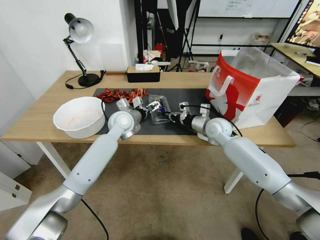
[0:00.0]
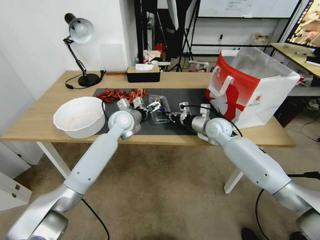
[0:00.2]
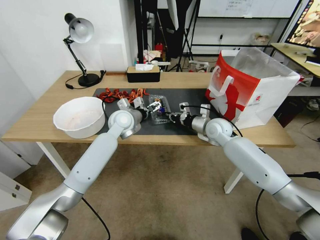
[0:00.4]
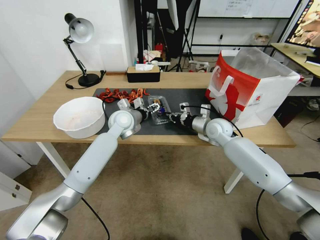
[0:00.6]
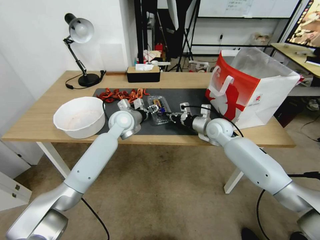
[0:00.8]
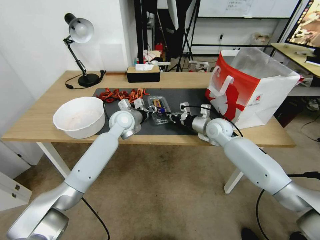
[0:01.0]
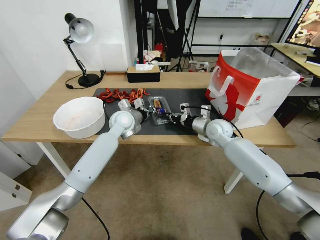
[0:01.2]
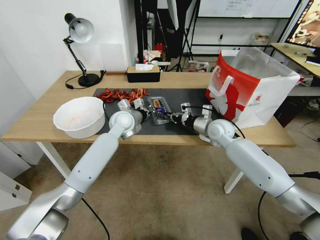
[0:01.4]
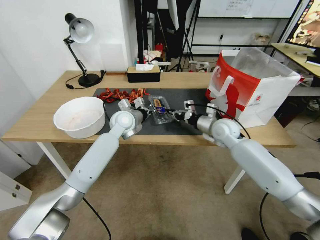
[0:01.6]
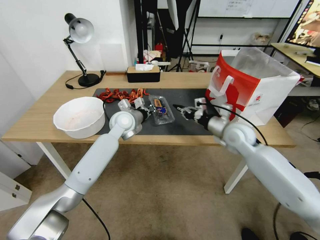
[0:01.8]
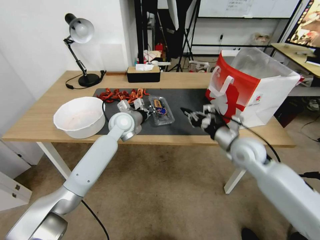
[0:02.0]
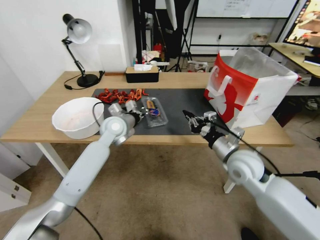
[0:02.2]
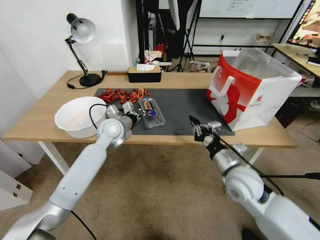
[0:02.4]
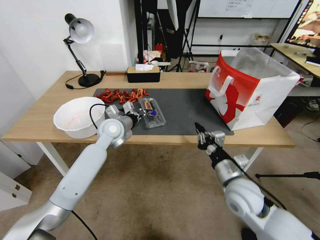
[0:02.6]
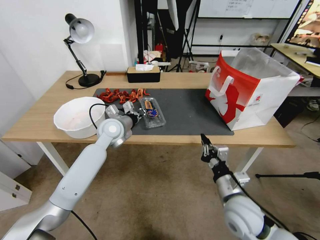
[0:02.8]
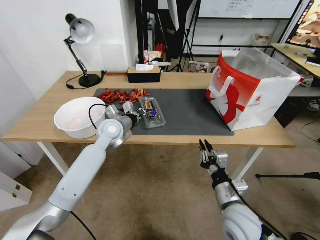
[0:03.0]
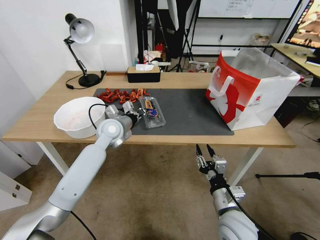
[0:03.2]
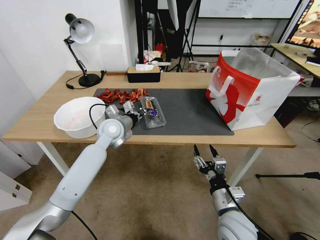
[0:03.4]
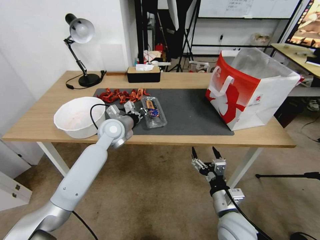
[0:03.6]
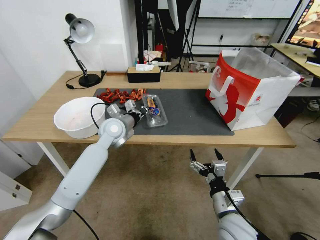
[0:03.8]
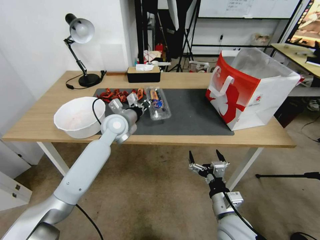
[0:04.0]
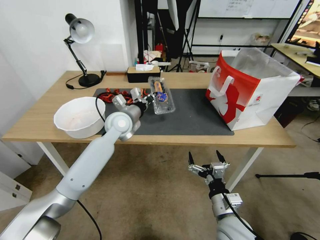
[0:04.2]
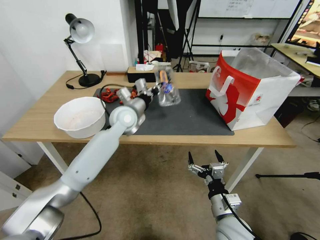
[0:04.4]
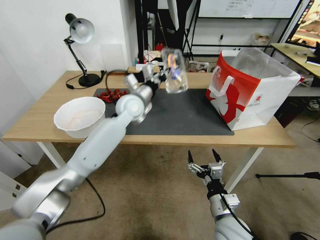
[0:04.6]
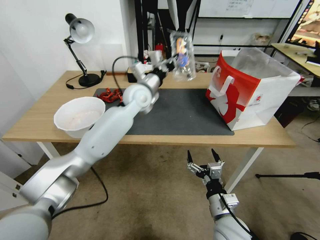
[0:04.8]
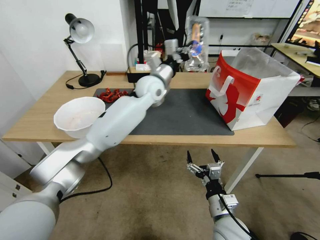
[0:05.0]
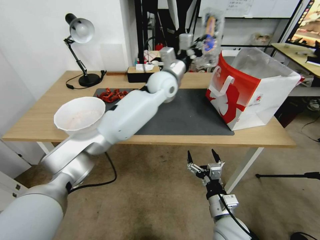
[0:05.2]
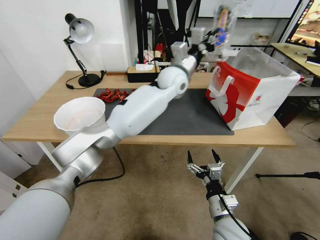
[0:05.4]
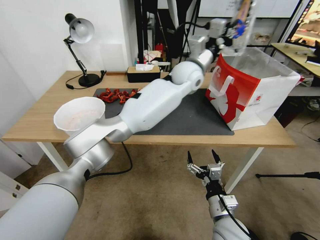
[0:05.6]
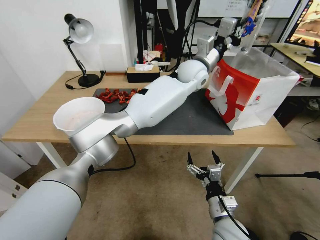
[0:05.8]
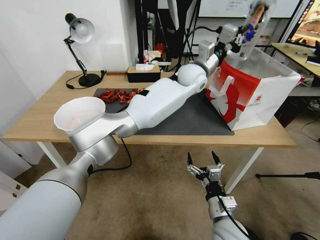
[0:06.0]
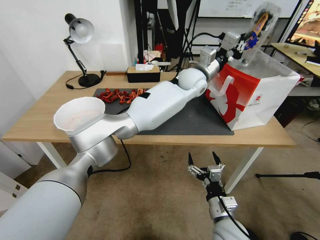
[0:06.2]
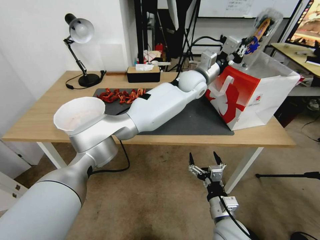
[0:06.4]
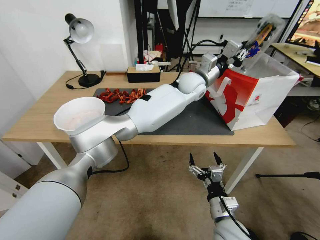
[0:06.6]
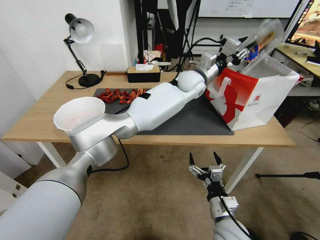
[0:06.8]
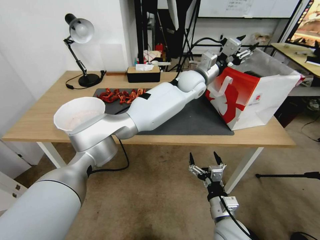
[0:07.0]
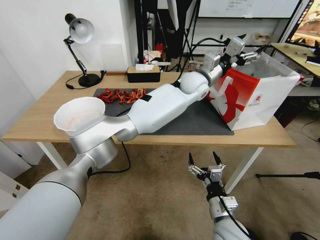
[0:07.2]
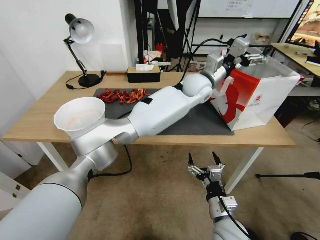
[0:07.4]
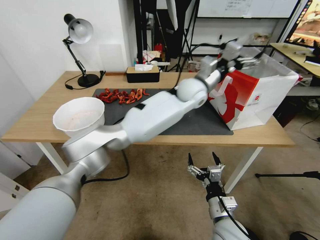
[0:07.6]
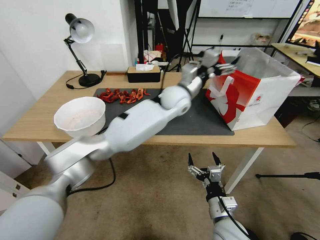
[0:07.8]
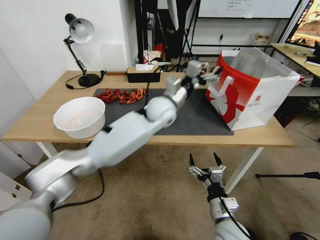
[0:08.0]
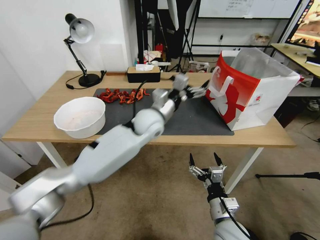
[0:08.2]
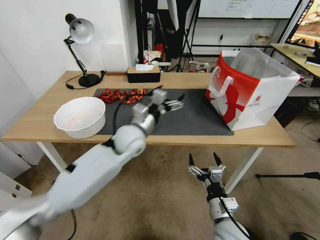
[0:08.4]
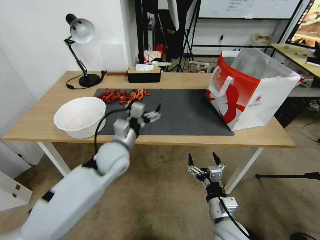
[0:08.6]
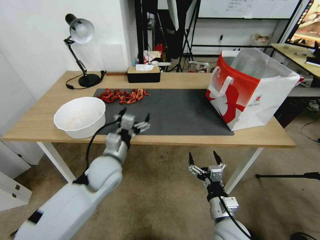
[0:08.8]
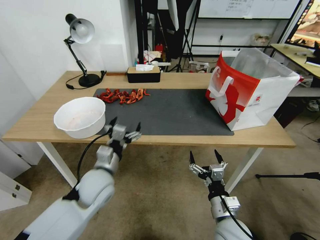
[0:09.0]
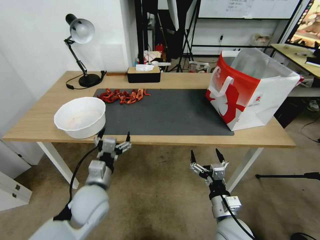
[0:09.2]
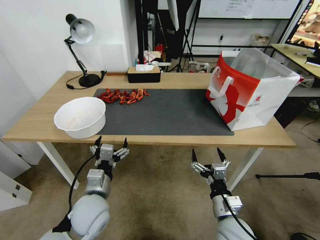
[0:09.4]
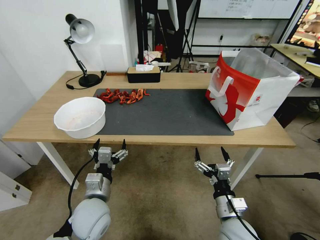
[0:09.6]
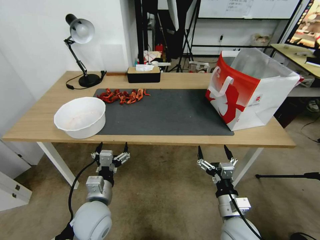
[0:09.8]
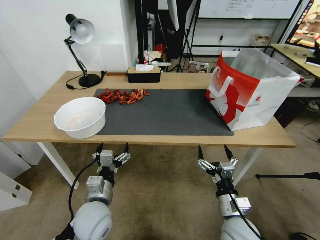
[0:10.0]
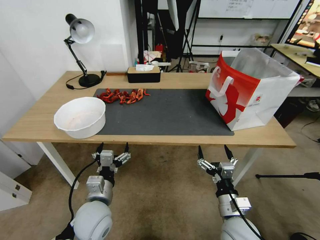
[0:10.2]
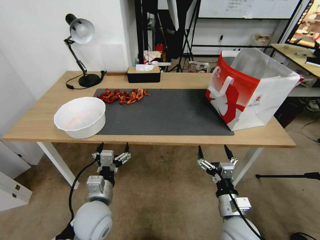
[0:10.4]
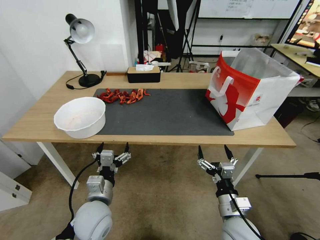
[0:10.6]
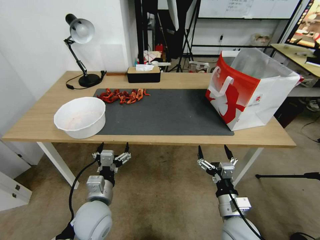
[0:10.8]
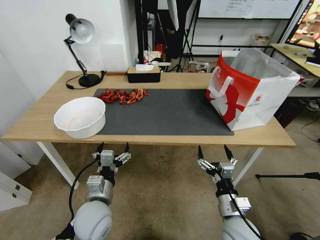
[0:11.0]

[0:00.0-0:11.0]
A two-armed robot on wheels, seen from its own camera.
Task of the whole recording: Close the takeout container lid, then place the container into the takeout bag.
0:00.0 to 0:01.6: The left gripper closes its fingers.
0:01.6 to 0:03.2: The left gripper shifts by some 5 cm. The right gripper goes roughly 30 cm backward, and opens.
0:03.2 to 0:04.8: The left gripper moves upward, to the right and forward, some 15 cm; the right gripper opens.
0:04.8 to 0:06.2: The left gripper shifts roughly 20 cm to the right.
0:06.2 to 0:07.8: The left gripper travels to the left and backward by about 10 cm, and opens up.
0:07.8 to 0:09.4: The left gripper travels backward, to the left and downward by about 40 cm.
0:09.4 to 0:11.0: There are only small adjustments of the grippers.
